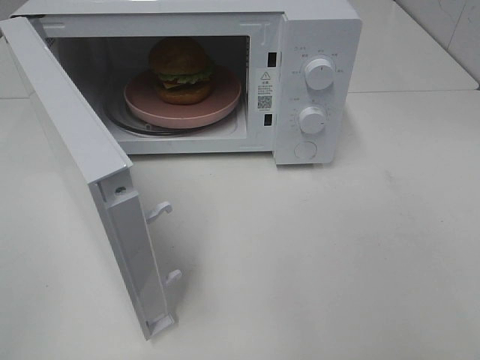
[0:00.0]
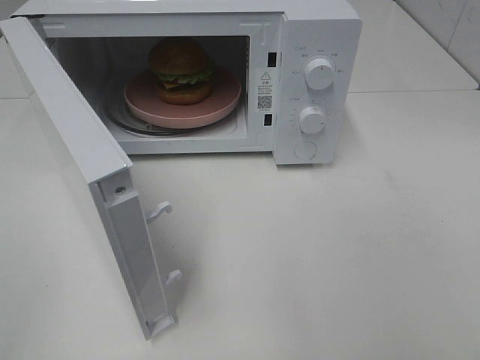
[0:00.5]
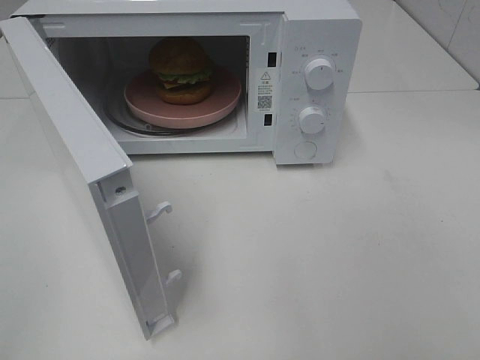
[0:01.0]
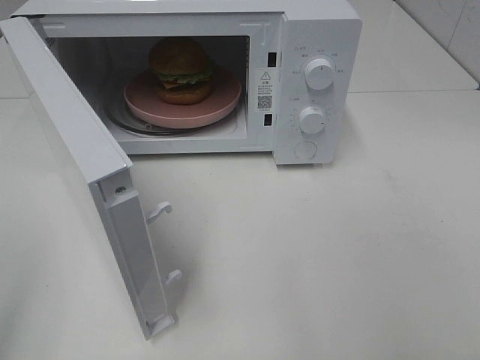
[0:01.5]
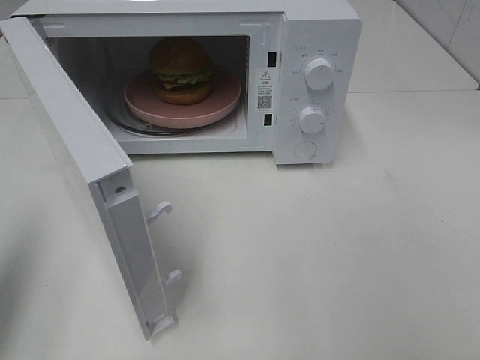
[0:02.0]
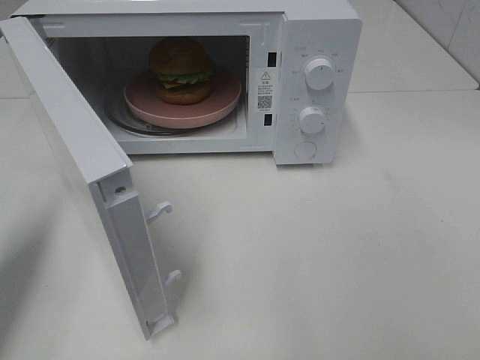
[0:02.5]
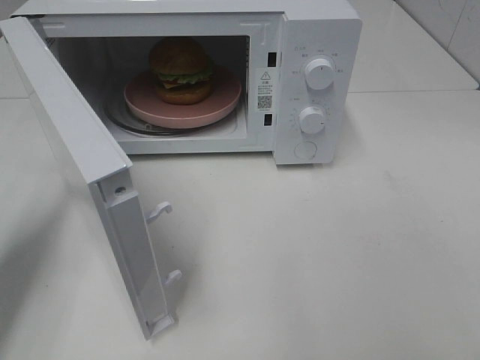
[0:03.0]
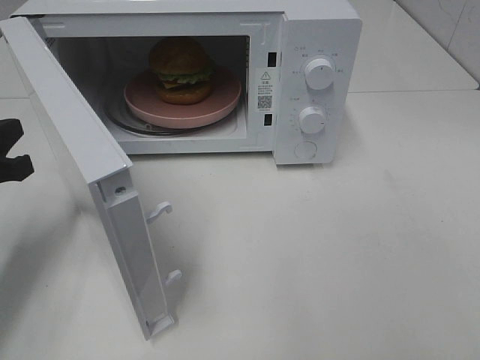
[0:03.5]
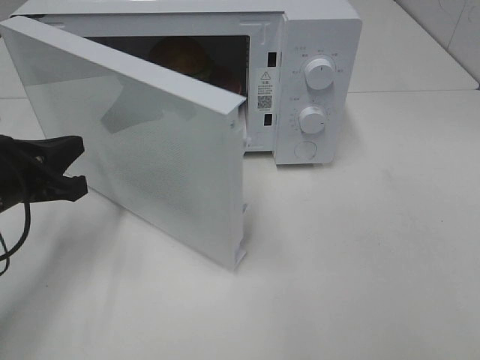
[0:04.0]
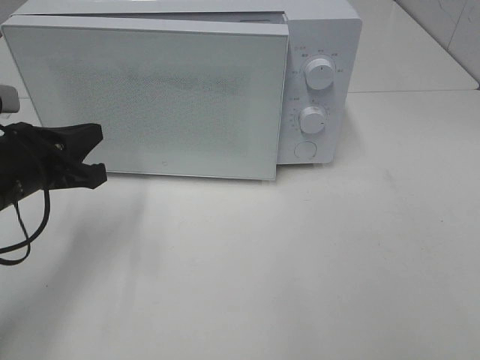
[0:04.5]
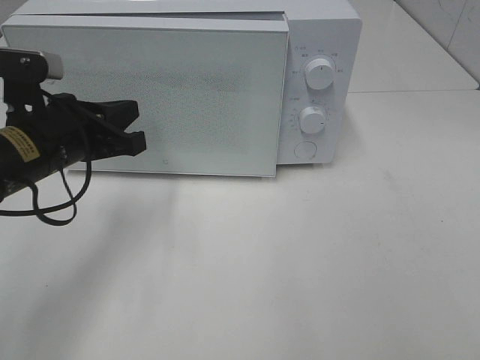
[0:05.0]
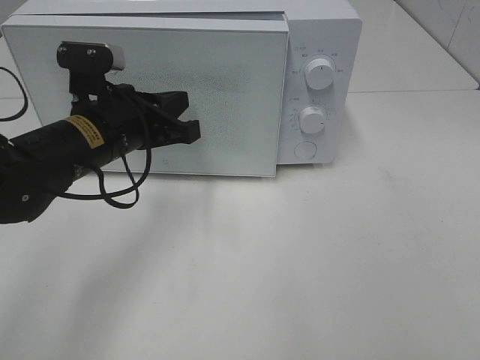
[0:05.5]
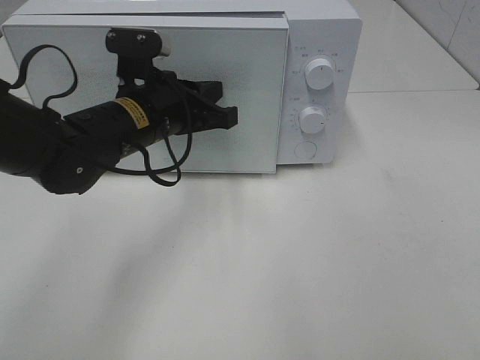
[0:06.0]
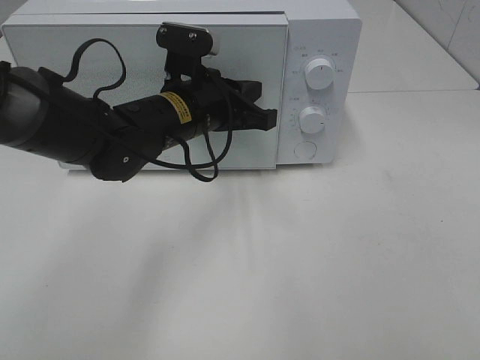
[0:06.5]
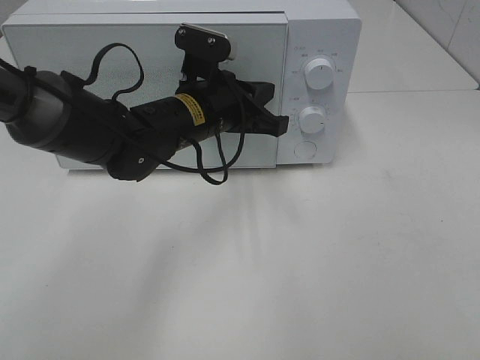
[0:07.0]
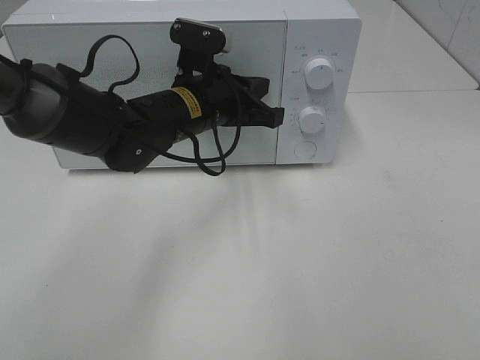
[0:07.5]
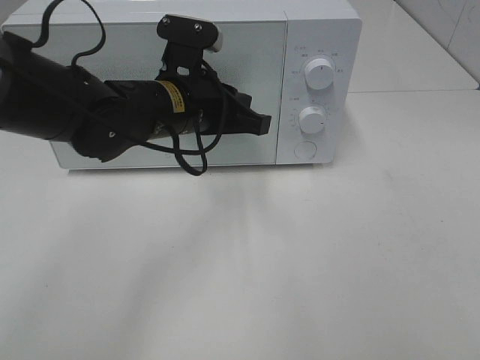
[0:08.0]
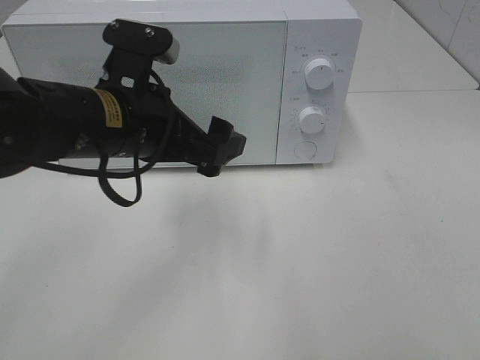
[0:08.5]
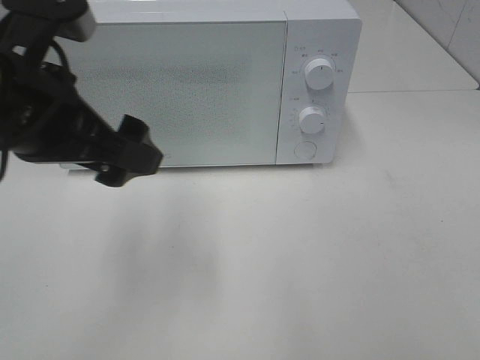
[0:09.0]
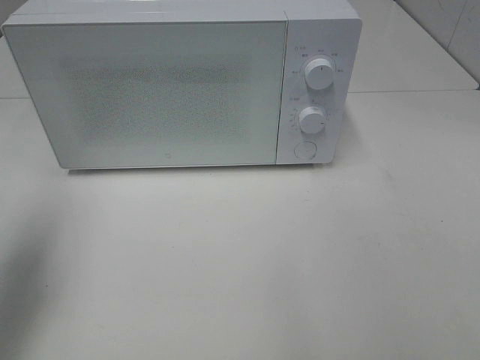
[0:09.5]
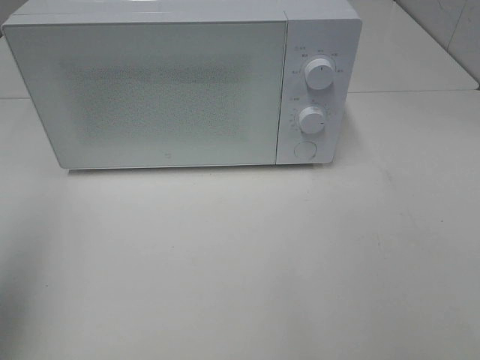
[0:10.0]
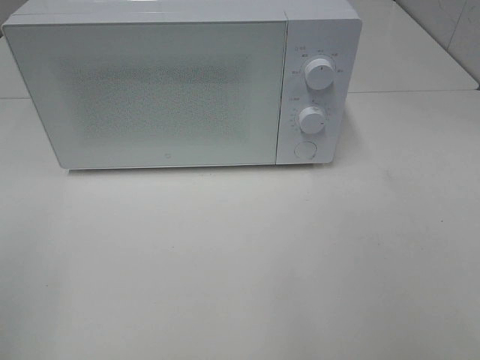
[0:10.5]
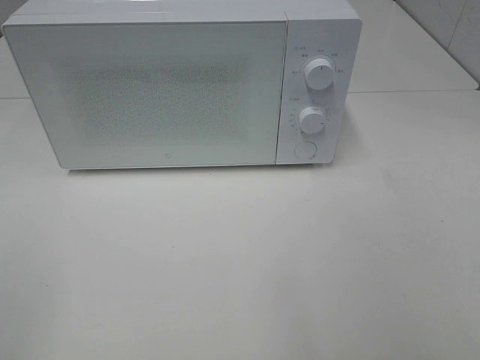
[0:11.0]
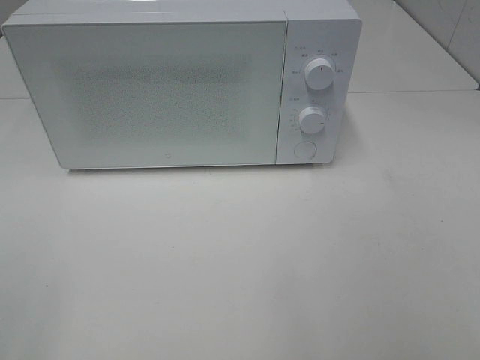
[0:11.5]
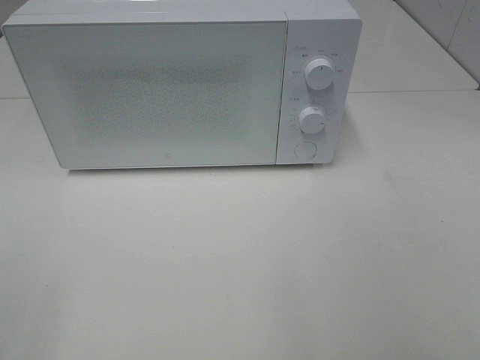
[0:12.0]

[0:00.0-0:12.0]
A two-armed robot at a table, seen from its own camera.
Task of the whole recording: Heat the burger.
Step, 0:00.0 to 0:07.5: Left hand: close the microwave door.
0:00.0 to 0:02.0: The left gripper travels forward by about 15 cm, and closes.
0:02.0 to 0:04.0: The left gripper goes some 20 cm downward, forward and to the right.
0:04.0 to 0:06.0: The left gripper moves to the right and forward, about 15 cm.
0:06.0 to 0:08.0: The grippers make only small movements.
0:08.0 to 0:10.0: The left gripper moves to the left, backward and upward, about 35 cm, and opens its fingers.
0:10.0 to 0:12.0: The left gripper moves backward, roughly 15 cm.

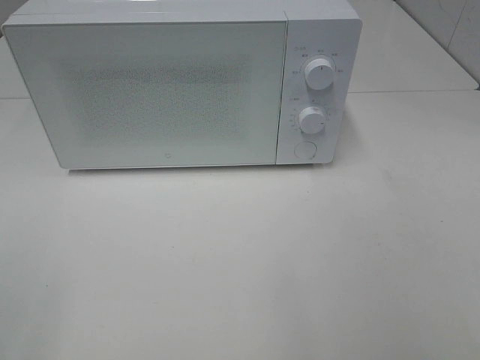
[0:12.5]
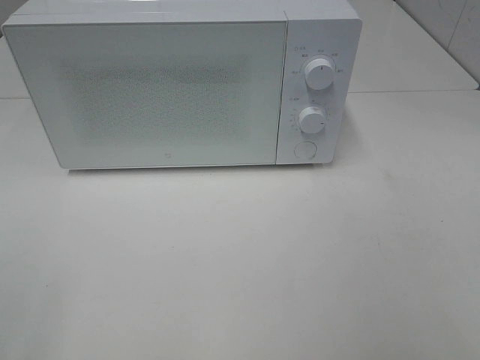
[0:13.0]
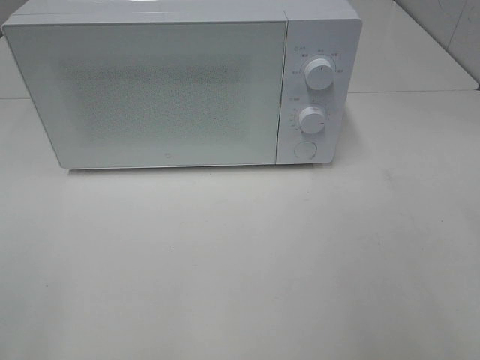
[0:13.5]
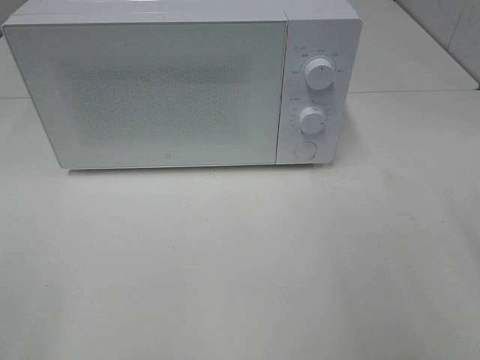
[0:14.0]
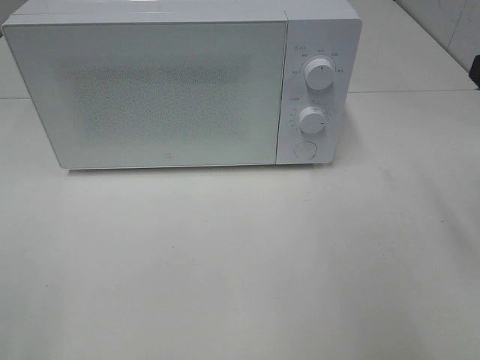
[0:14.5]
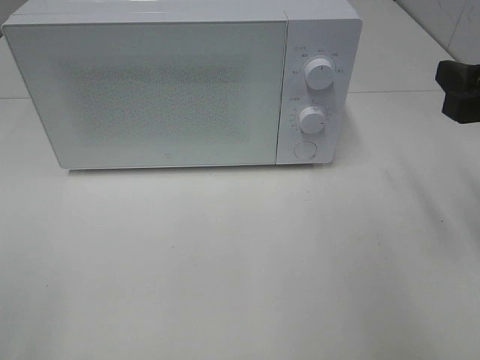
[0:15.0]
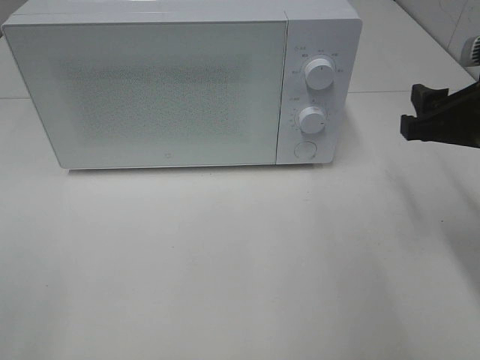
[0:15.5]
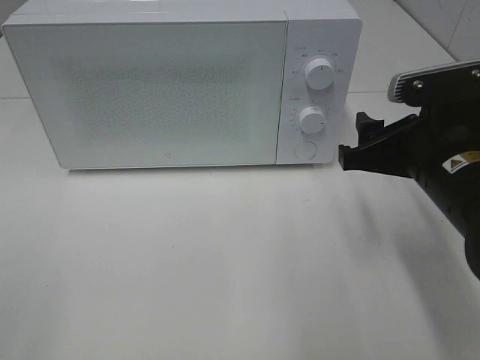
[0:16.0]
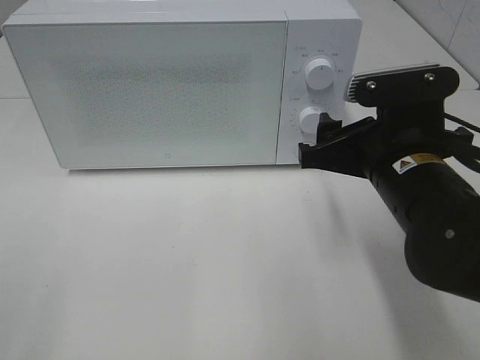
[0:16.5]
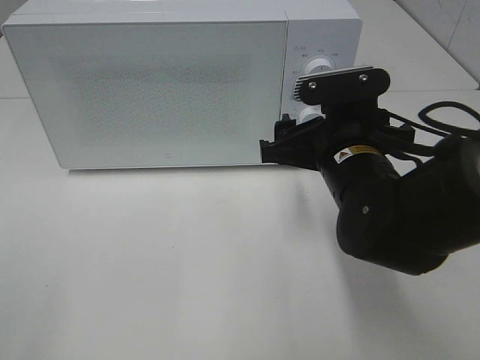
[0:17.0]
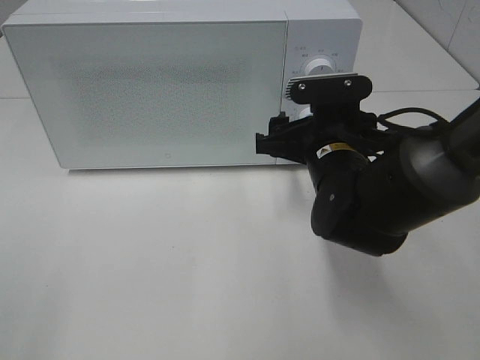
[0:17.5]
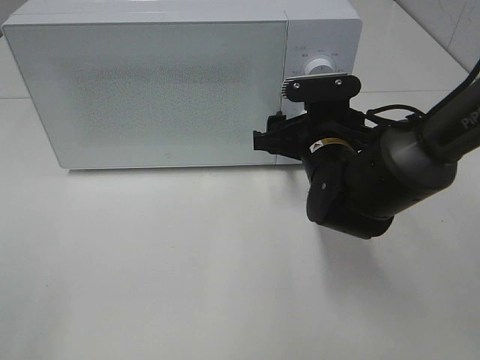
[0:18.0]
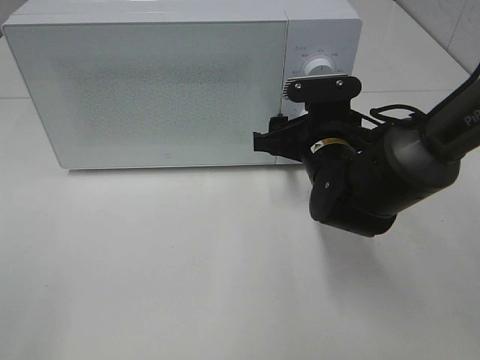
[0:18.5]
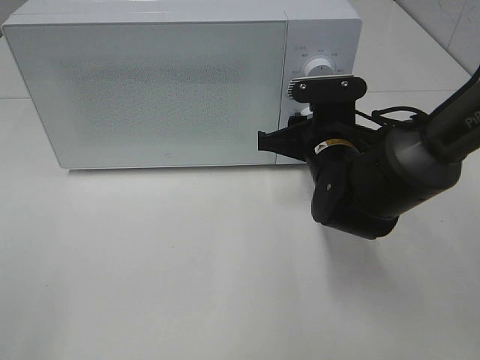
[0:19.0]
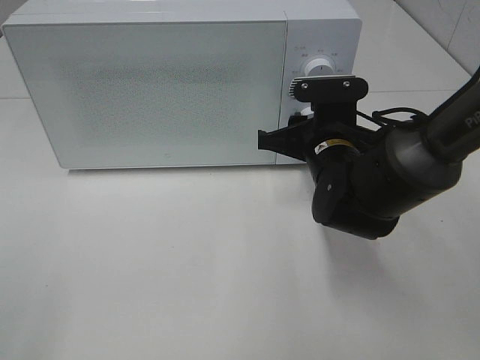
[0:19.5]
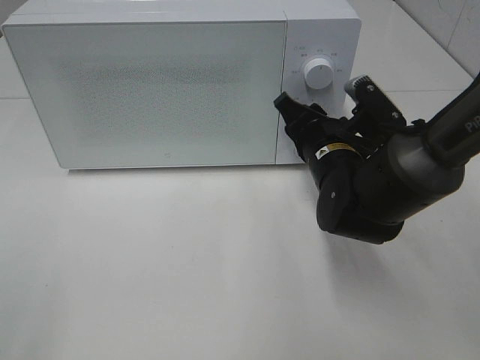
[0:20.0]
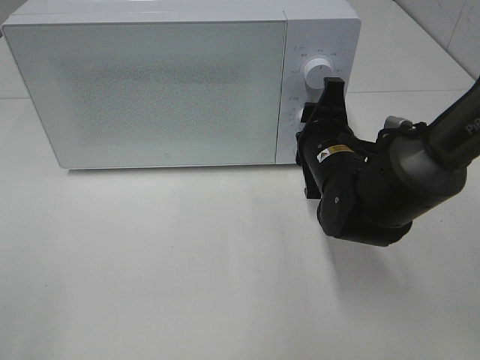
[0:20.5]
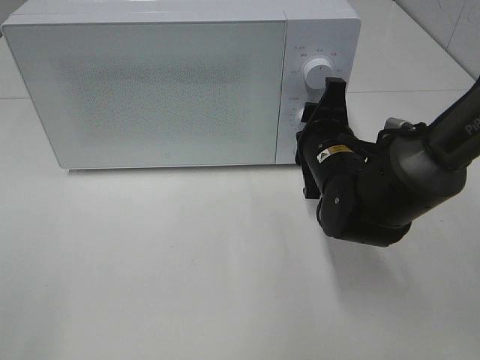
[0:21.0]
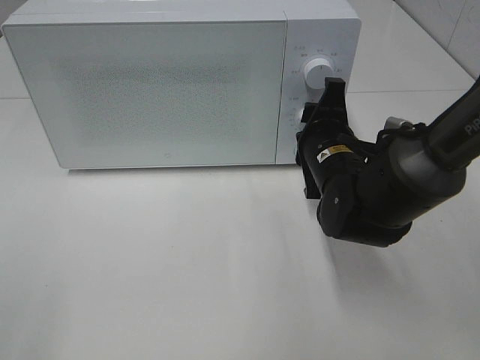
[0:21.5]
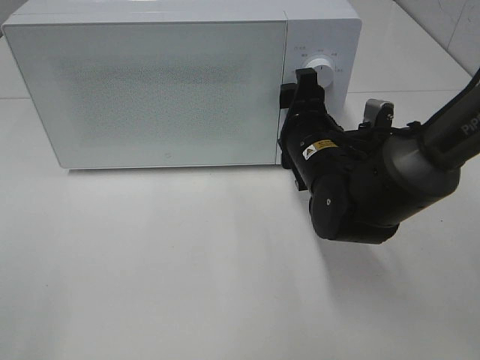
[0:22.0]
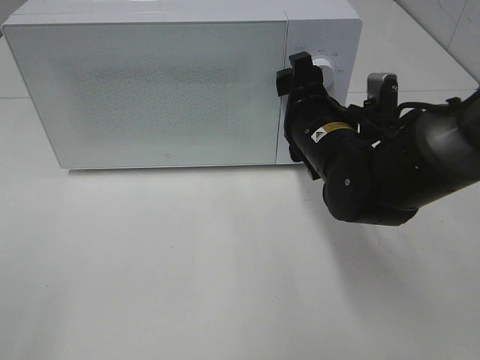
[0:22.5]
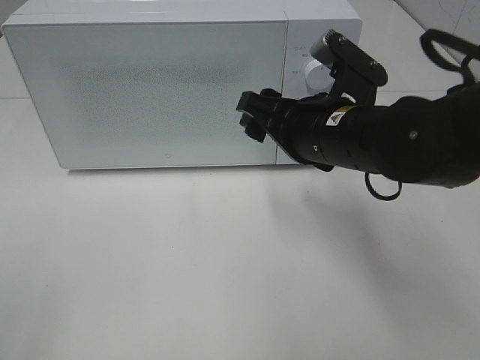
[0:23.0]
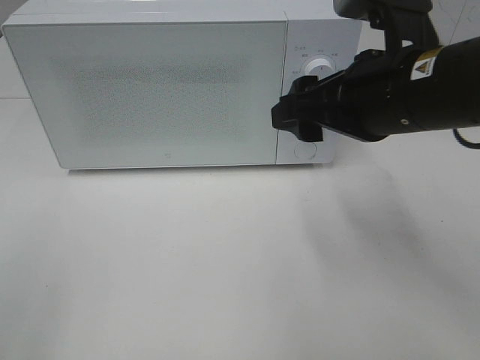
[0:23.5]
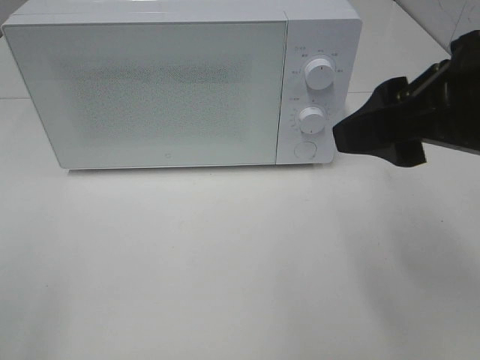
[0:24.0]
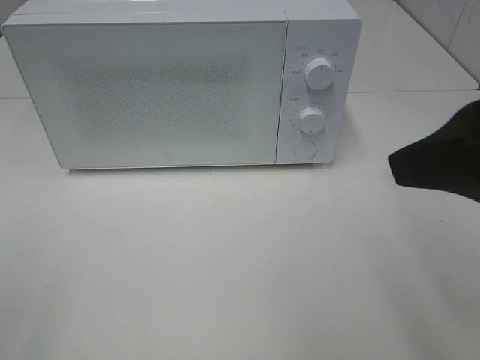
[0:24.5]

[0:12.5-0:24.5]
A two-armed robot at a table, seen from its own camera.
Task of the whole recording: Heat the burger.
Step, 0:12.5 to 0:21.5: Right hand: twist timer button.
0:14.5 to 0:16.5: The right gripper travels to the left and downward by some 15 cm.
0:16.5 to 0:18.5: The right gripper shifts some 10 cm forward and downward.
0:22.5 to 0:24.5: The right gripper travels backward, upward and to the right by approximately 25 cm.

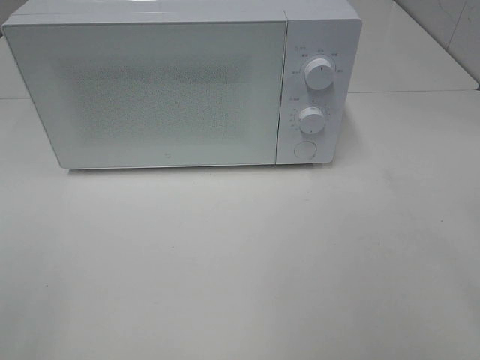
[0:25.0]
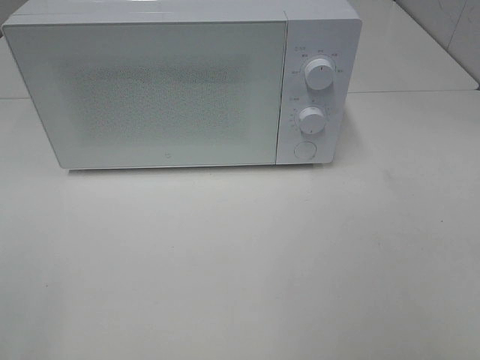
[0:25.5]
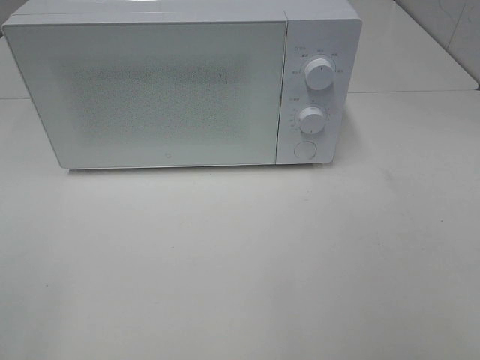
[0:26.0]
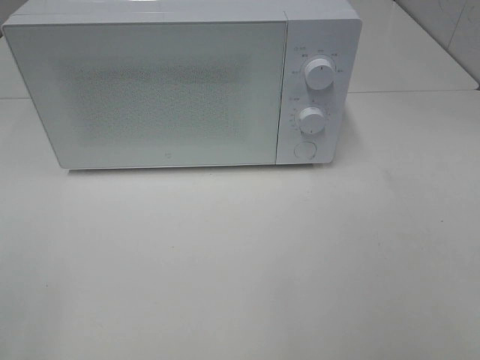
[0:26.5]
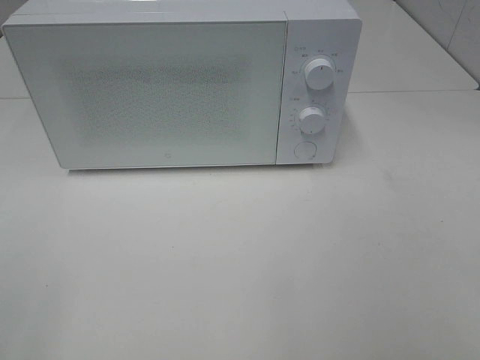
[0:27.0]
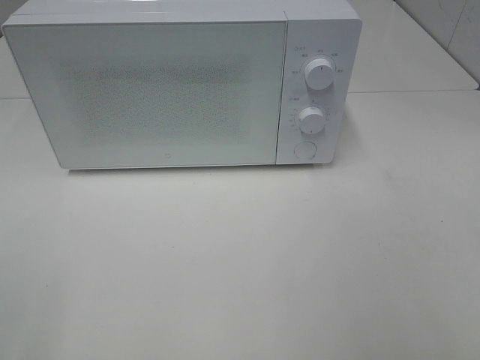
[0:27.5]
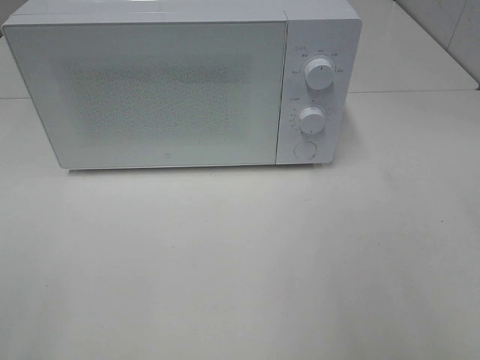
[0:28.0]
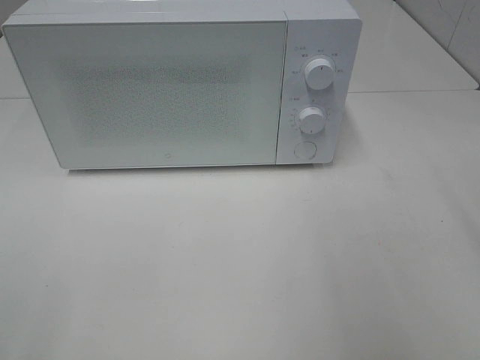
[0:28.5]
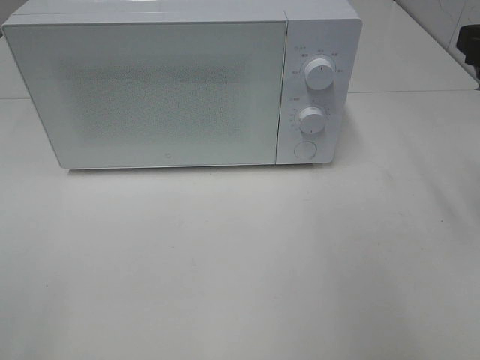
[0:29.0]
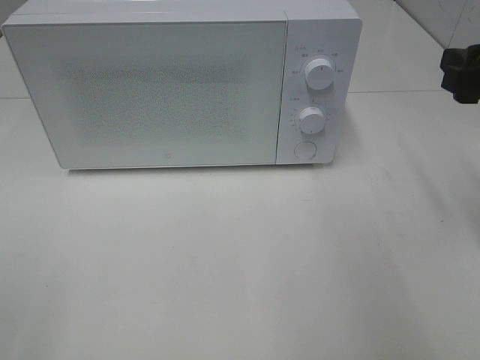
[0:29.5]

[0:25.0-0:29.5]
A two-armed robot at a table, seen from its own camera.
Task of the whole recording: Heat the burger.
0:27.0 to 0:29.5: The right gripper is displaced forward by some 25 cm.
